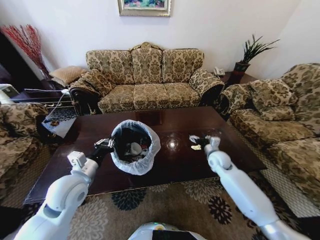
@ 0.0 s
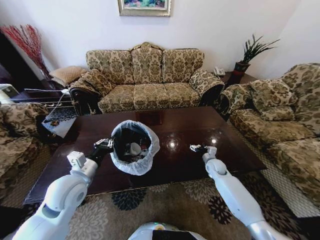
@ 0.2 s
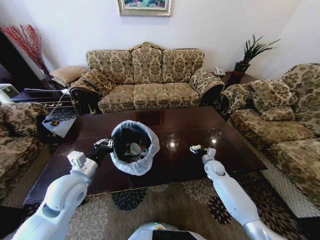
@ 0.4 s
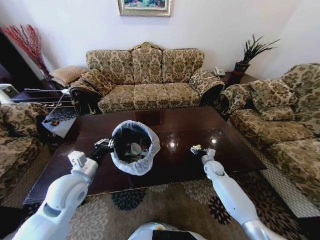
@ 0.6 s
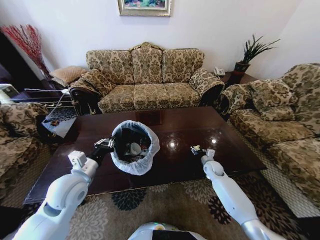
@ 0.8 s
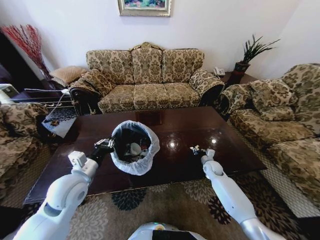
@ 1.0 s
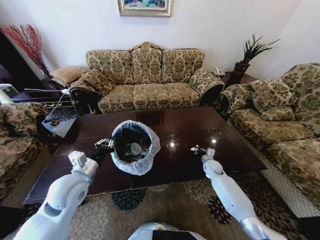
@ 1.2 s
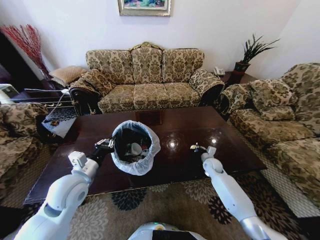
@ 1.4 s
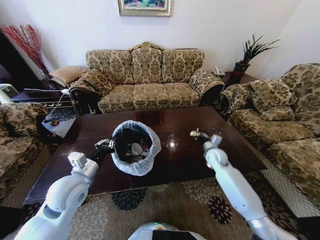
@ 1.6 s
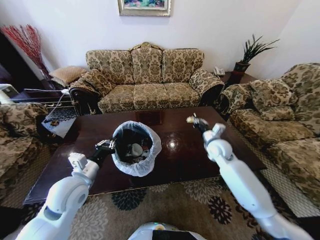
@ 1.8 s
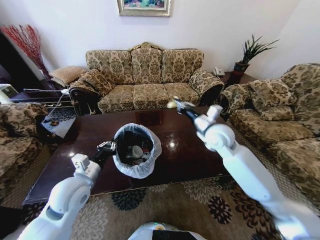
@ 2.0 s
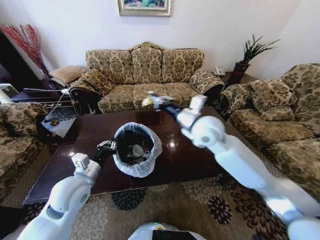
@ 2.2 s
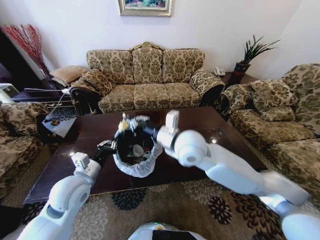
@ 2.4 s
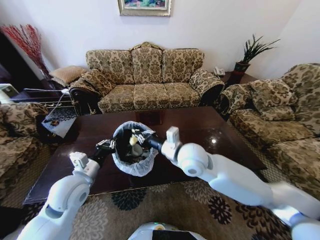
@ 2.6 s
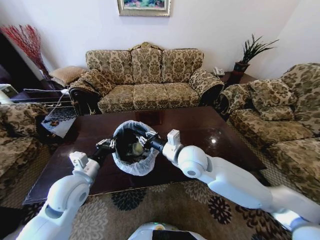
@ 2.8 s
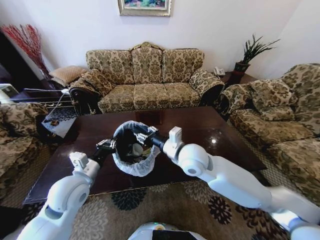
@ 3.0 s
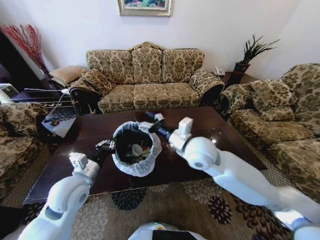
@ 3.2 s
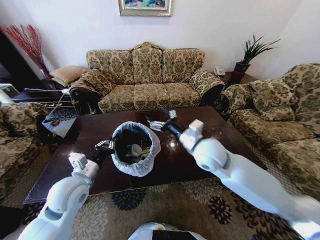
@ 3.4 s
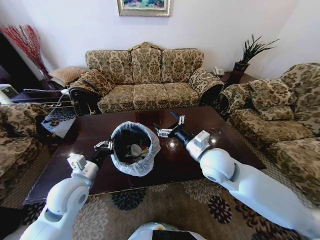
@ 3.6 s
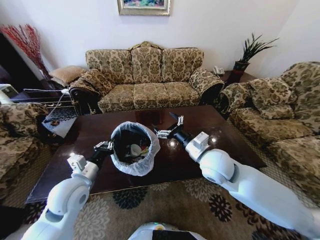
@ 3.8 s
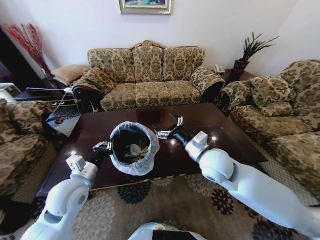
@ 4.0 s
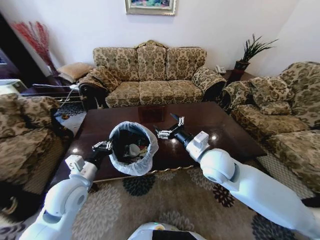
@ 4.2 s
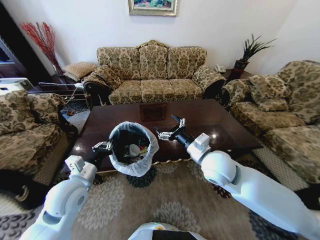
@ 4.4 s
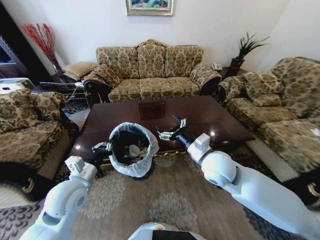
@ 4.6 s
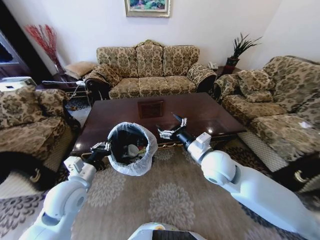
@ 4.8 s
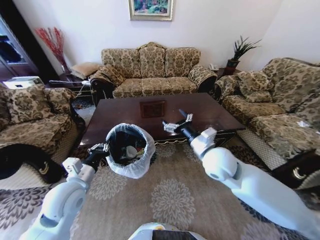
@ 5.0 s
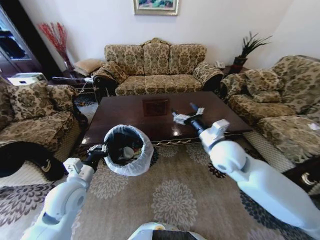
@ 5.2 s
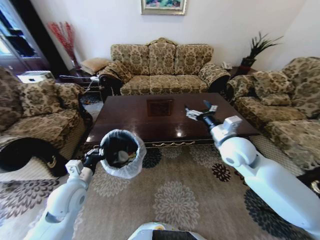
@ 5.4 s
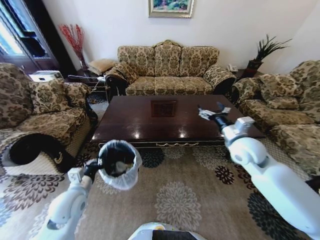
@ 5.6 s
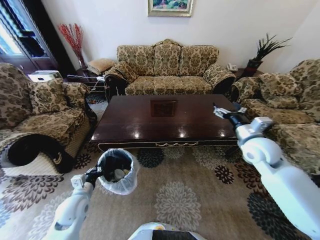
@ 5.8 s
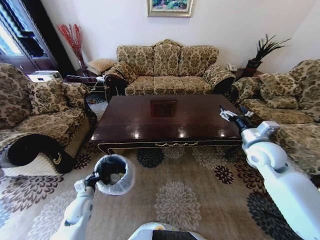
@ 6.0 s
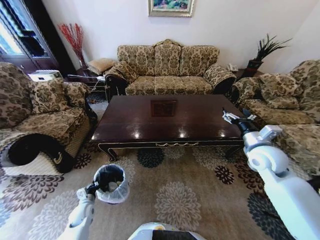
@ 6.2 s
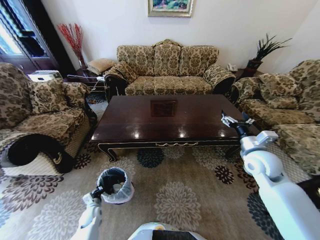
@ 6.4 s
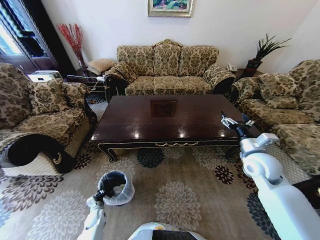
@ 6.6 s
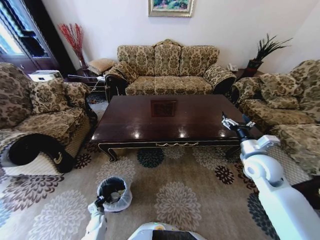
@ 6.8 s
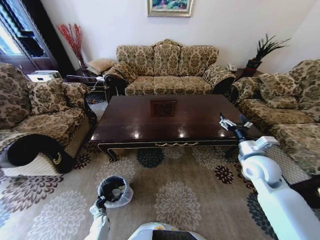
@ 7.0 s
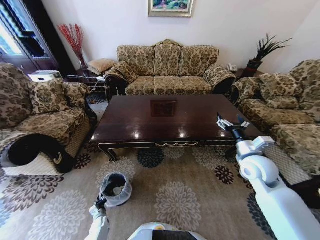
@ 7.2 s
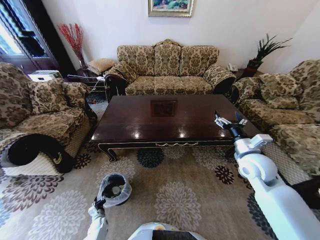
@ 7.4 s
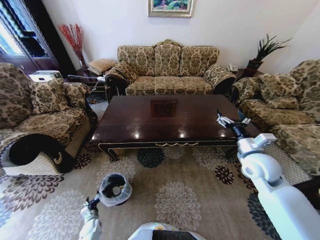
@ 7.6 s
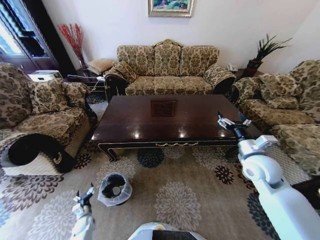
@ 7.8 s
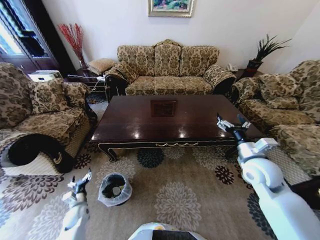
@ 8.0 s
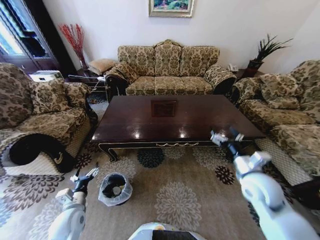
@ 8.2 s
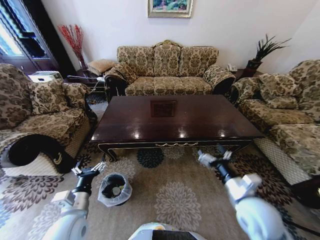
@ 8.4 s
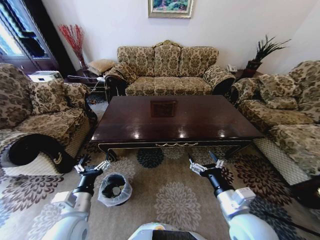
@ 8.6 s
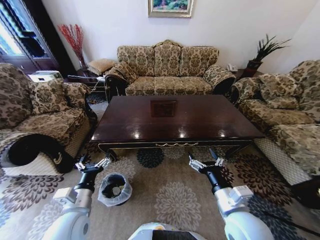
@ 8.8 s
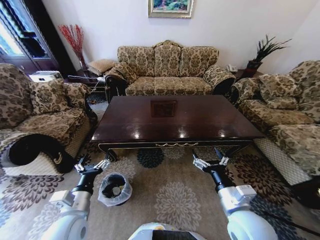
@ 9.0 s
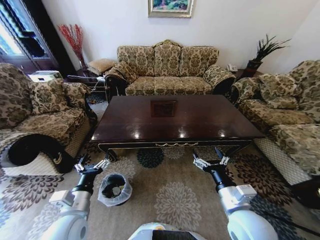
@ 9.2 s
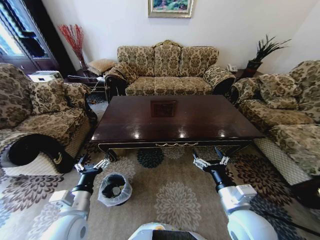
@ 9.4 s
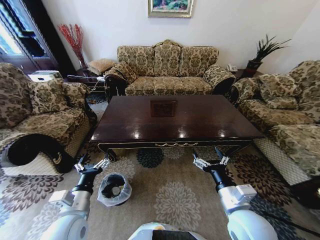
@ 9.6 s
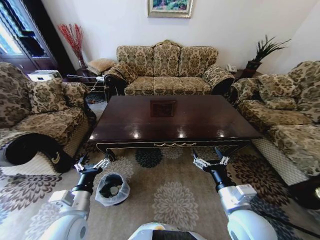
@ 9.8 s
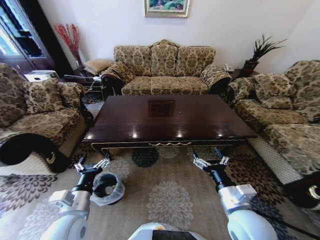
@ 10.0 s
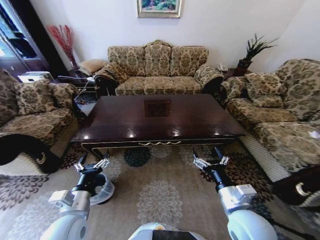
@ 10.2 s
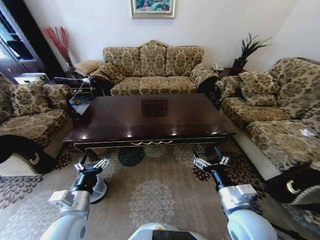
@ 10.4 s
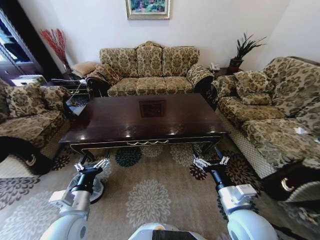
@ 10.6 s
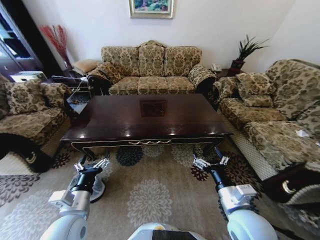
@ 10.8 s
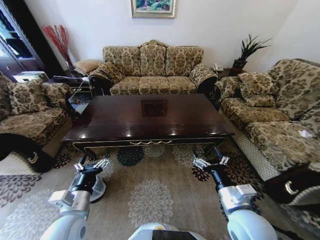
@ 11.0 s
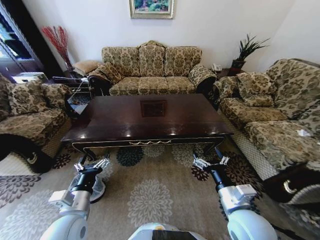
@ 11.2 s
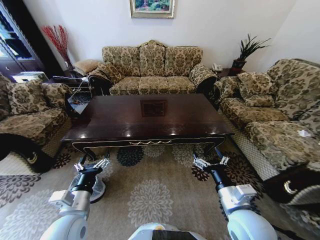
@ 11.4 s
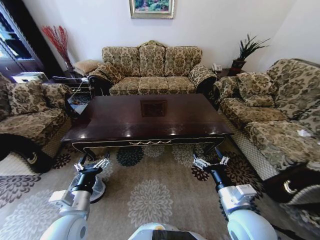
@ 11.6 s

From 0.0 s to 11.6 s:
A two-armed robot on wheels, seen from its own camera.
Task of the whole recording: Move to the front of the table and place the trash on the table into the trash bin.
From 0.0 s to 1.4 s: The right gripper goes some 10 cm downward, and closes.
From 1.4 s to 2.8 s: The right gripper travels upward, to the left and backward by approximately 35 cm.
From 2.8 s to 4.4 s: The right gripper goes about 10 cm to the right, and opens its fingers.
From 4.4 s to 5.8 s: The right gripper shifts approximately 20 cm to the right. Meanwhile the left gripper goes roughly 15 cm downward.
From 5.8 s to 7.2 s: The right gripper is displaced downward by approximately 5 cm; the left gripper shifts approximately 35 cm downward.
From 7.2 s to 8.8 s: The left gripper goes some 40 cm upward, and opens its fingers; the right gripper heads backward and to the left, covering about 20 cm.

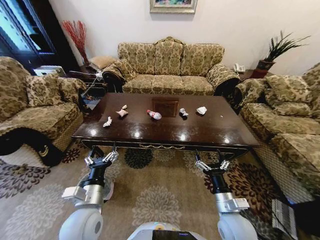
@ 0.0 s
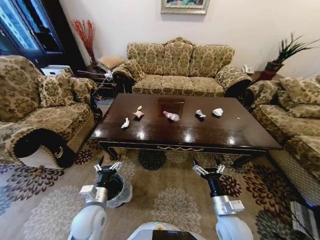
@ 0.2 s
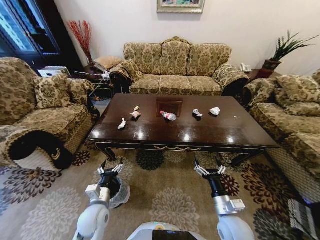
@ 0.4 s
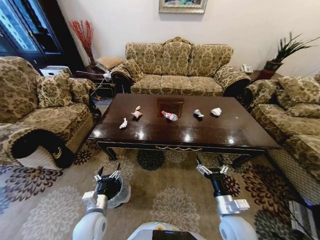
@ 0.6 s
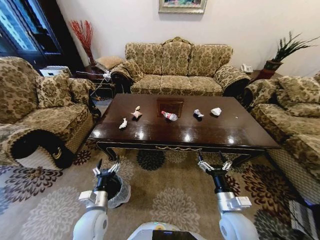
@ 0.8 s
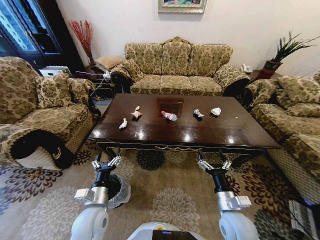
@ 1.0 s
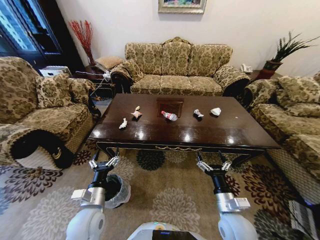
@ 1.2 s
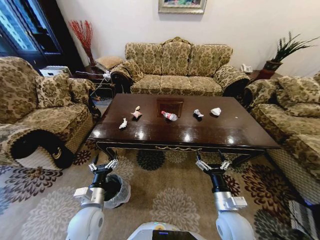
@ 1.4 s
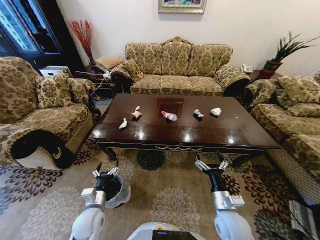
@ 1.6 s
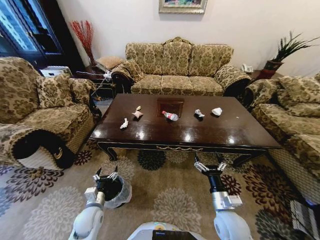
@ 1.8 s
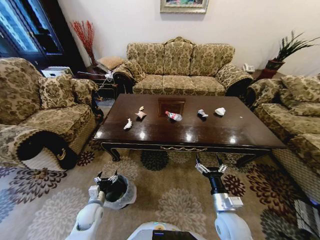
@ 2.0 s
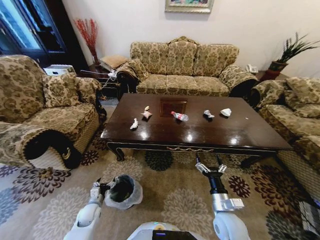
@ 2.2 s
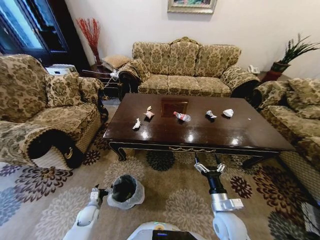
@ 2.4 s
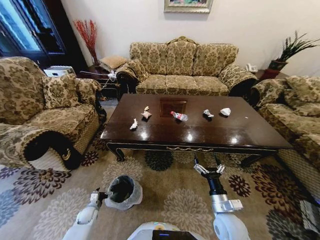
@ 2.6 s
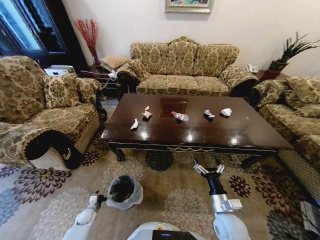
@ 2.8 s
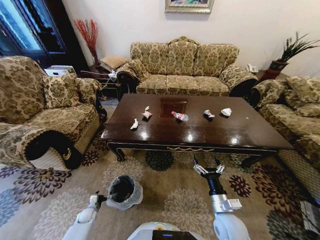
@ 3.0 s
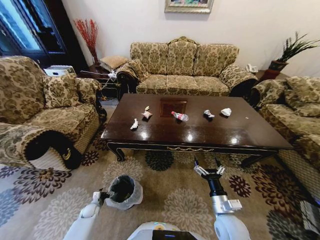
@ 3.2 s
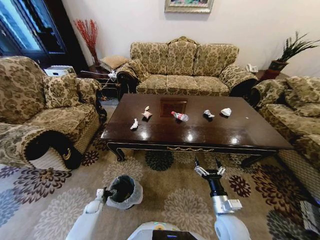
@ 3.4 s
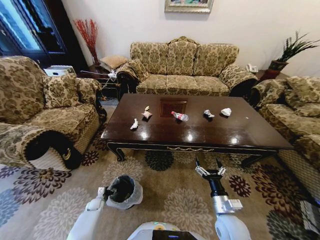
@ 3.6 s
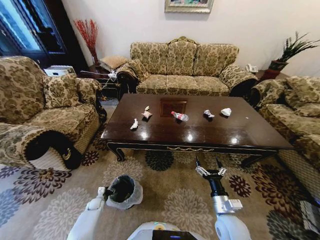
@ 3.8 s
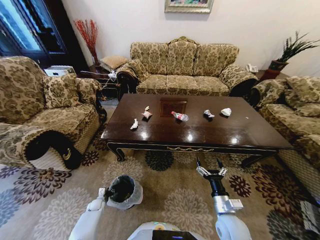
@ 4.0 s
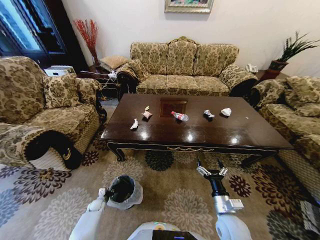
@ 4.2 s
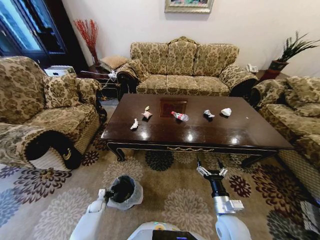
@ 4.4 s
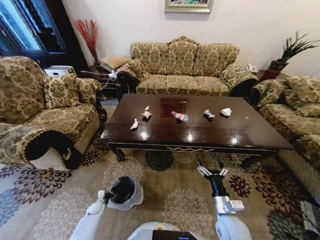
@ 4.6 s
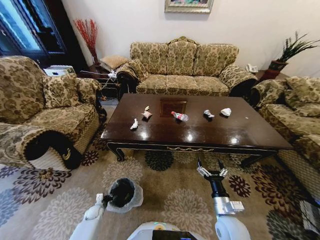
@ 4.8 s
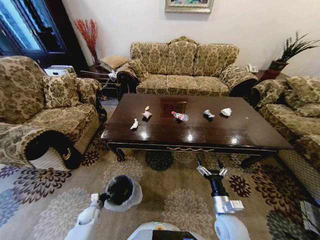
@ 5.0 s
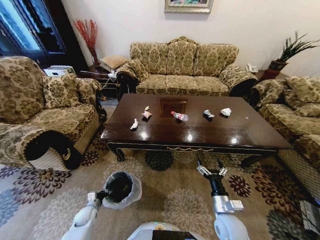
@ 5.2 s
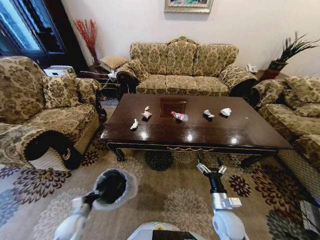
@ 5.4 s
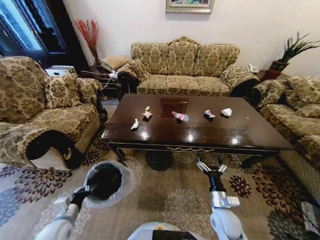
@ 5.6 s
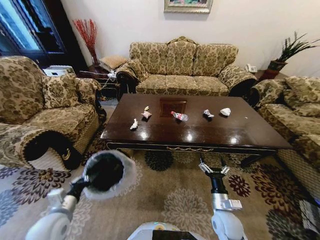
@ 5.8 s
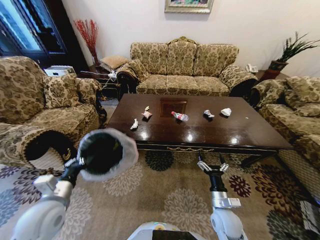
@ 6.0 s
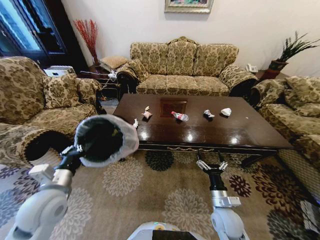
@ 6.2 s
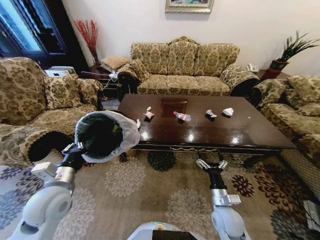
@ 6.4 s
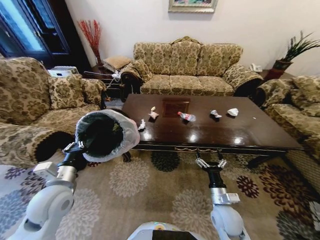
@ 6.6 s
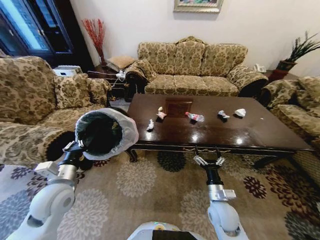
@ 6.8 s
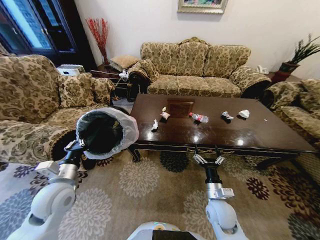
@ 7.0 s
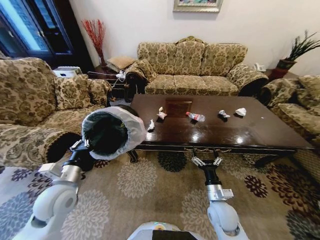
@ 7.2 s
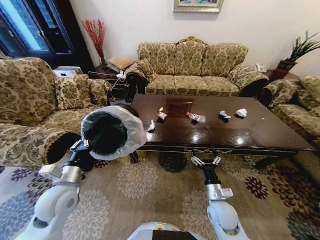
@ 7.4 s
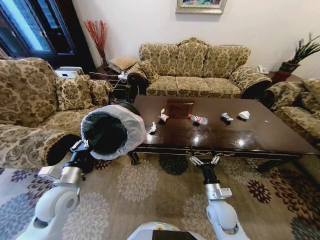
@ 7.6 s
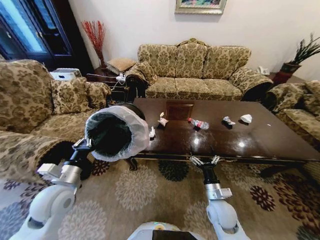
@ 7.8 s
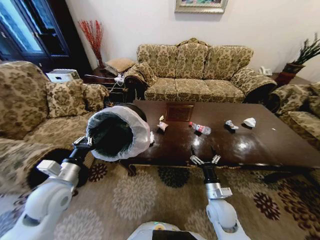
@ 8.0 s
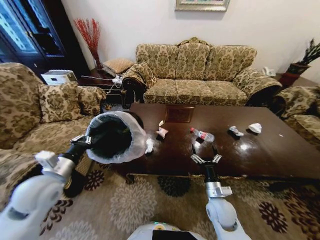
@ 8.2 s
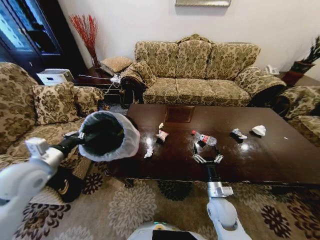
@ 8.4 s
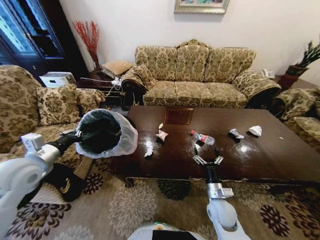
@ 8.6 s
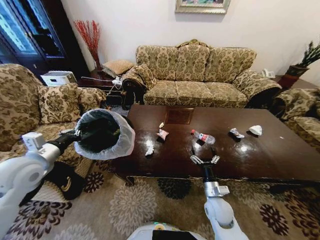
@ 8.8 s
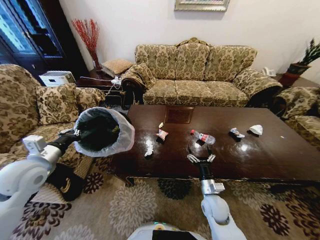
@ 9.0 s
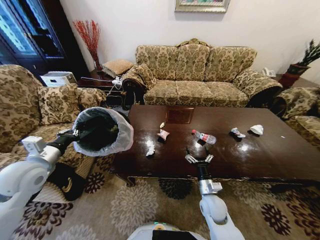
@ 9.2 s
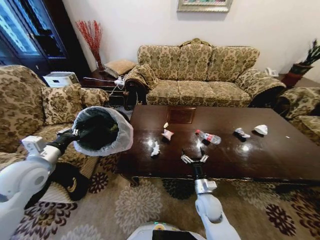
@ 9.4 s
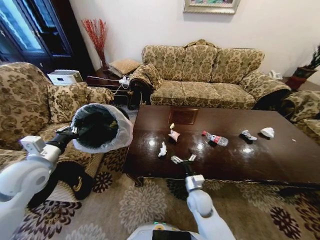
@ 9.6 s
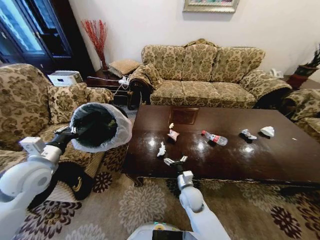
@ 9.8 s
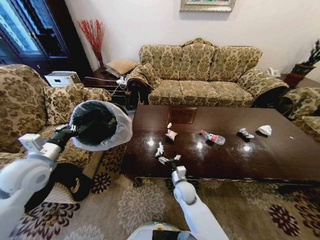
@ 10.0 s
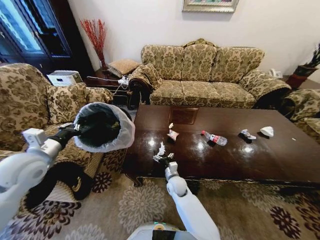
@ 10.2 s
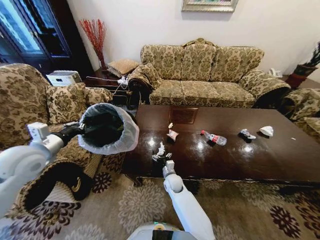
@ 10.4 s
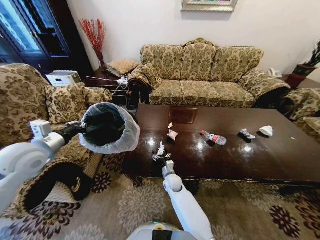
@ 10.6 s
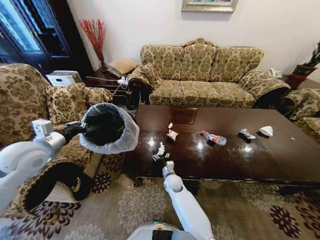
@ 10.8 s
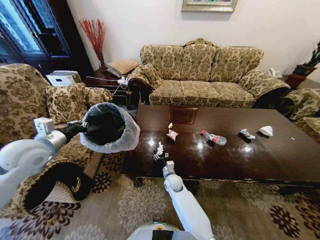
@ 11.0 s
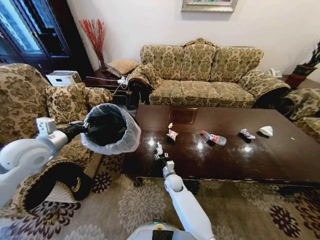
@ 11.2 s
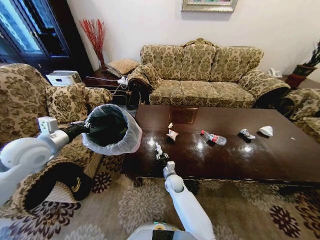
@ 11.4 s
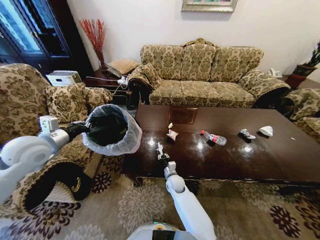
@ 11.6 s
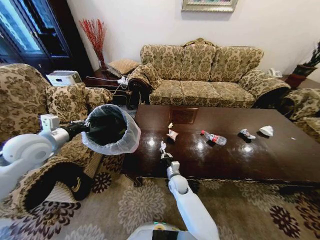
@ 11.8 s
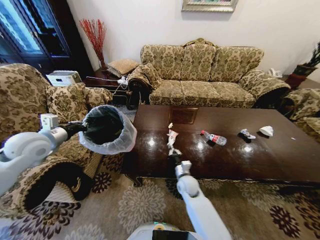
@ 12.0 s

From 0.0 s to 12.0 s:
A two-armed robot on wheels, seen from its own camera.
Task of the whole recording: Move to the front of the table and place the trash on the table into the trash bin.
From 1.6 s to 3.0 s: The left gripper shifts roughly 30 cm downward and to the left.
From 3.0 s to 4.4 s: The left gripper moves some 5 cm, and closes up.
From 4.4 s to 6.0 s: The left gripper goes roughly 40 cm upward.
From 7.6 s to 9.0 s: The left gripper is displaced upward and to the left by about 10 cm.
From 9.0 s to 10.4 s: The right gripper travels to the left and forward by approximately 20 cm.
From 10.4 s to 12.0 s: The right gripper shifts approximately 5 cm to the right, and closes up.
